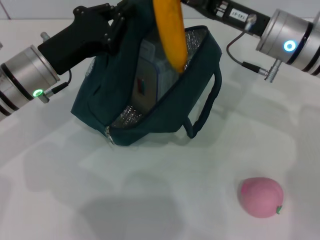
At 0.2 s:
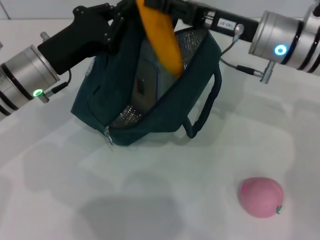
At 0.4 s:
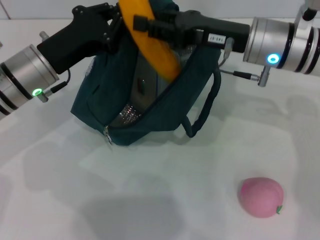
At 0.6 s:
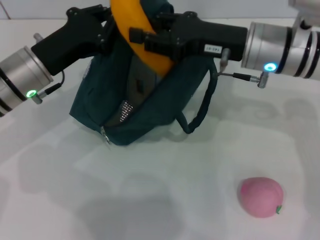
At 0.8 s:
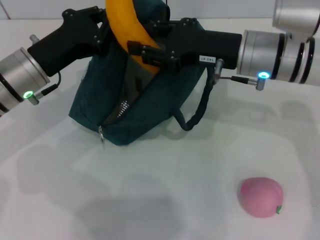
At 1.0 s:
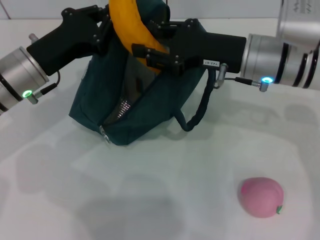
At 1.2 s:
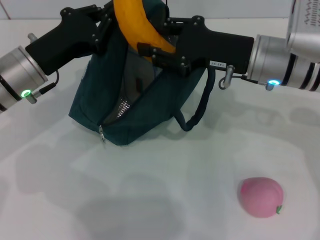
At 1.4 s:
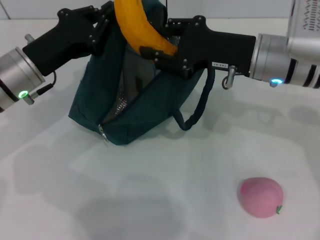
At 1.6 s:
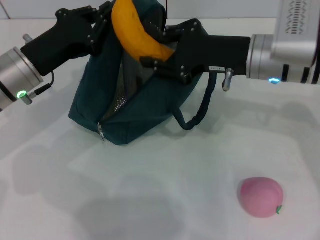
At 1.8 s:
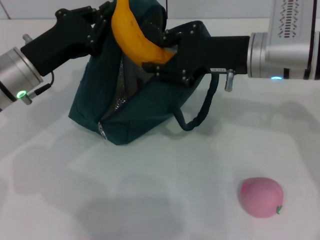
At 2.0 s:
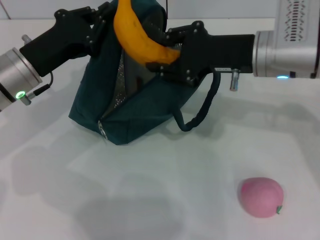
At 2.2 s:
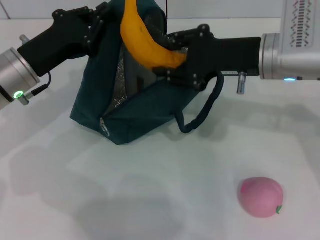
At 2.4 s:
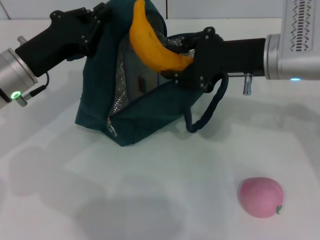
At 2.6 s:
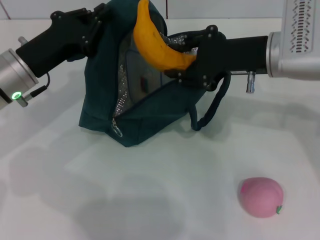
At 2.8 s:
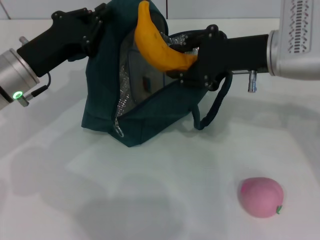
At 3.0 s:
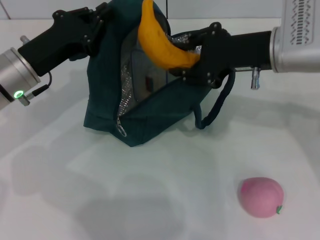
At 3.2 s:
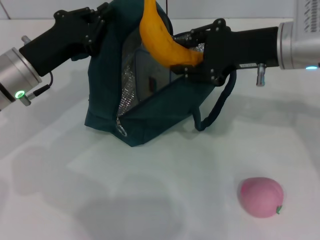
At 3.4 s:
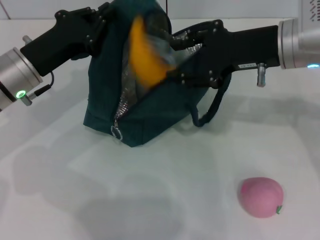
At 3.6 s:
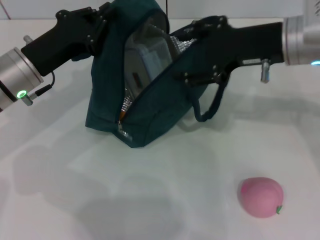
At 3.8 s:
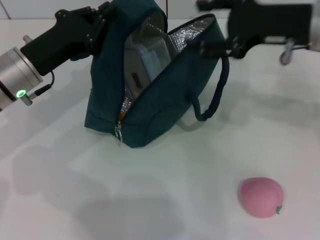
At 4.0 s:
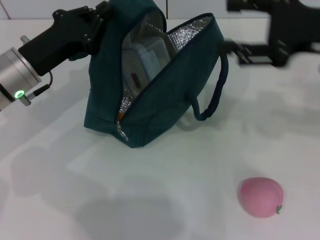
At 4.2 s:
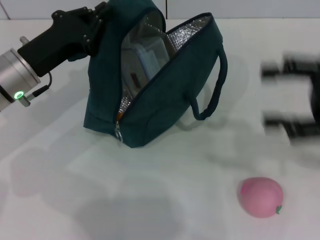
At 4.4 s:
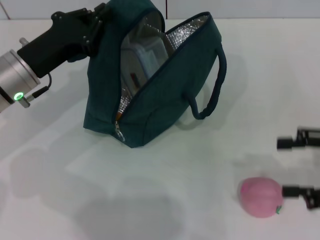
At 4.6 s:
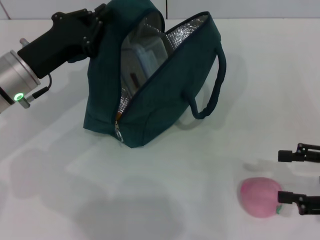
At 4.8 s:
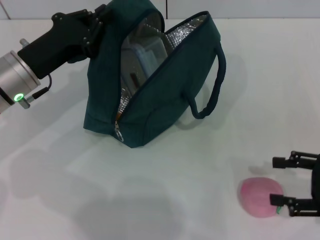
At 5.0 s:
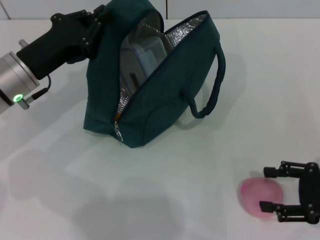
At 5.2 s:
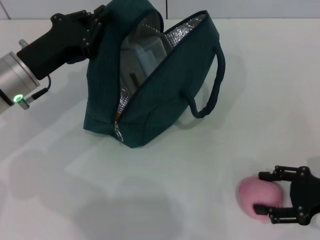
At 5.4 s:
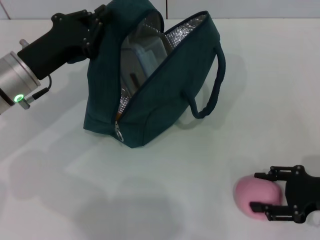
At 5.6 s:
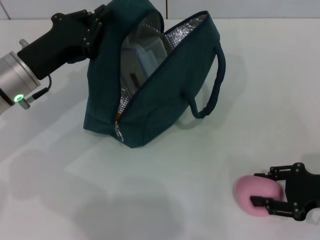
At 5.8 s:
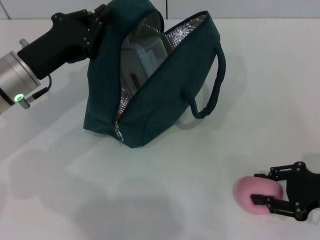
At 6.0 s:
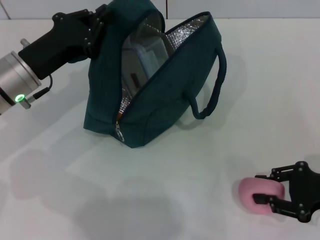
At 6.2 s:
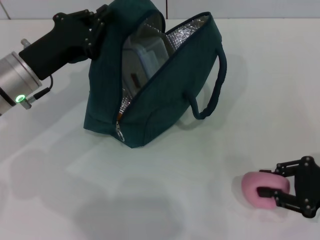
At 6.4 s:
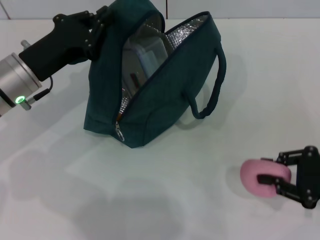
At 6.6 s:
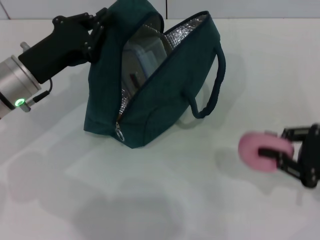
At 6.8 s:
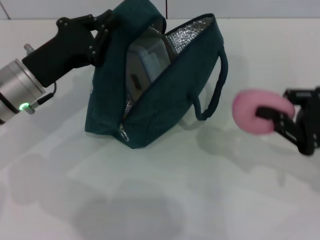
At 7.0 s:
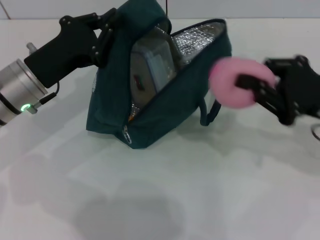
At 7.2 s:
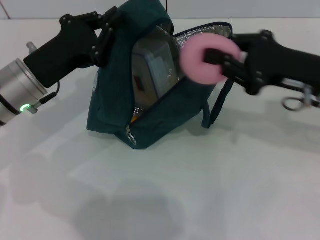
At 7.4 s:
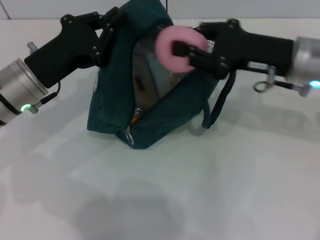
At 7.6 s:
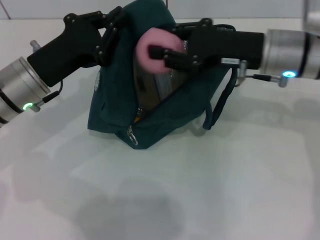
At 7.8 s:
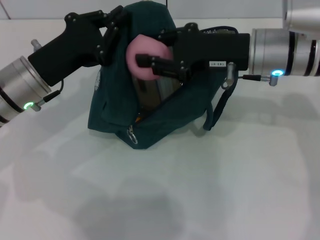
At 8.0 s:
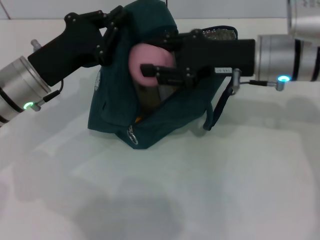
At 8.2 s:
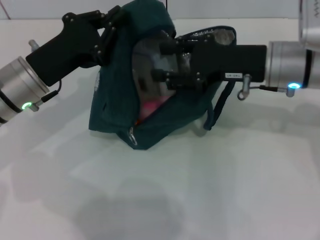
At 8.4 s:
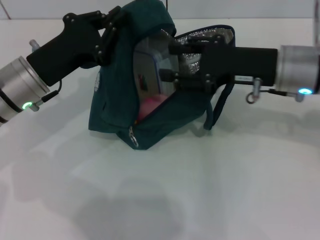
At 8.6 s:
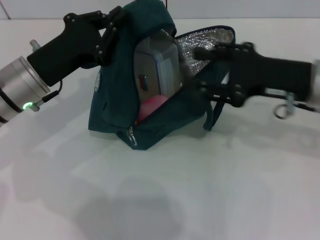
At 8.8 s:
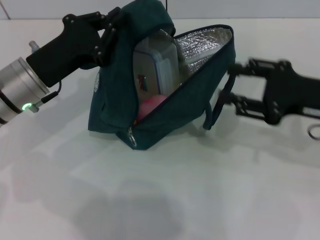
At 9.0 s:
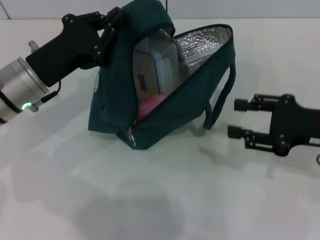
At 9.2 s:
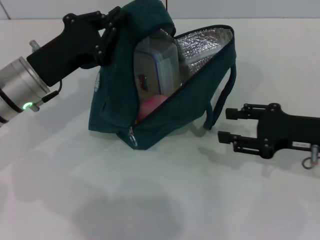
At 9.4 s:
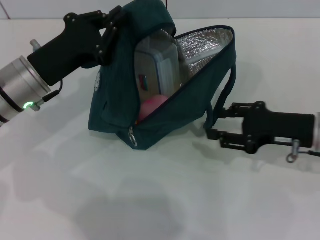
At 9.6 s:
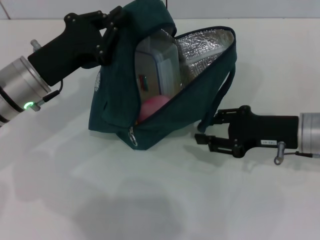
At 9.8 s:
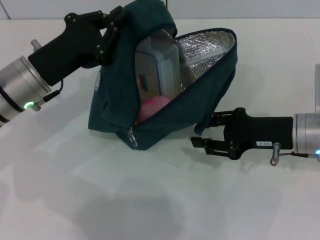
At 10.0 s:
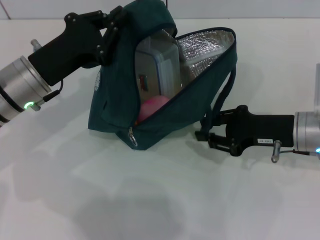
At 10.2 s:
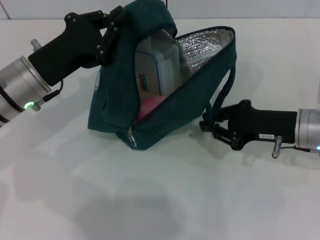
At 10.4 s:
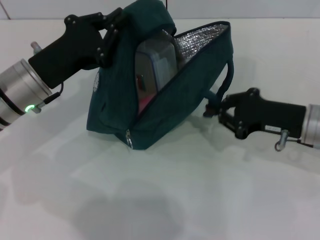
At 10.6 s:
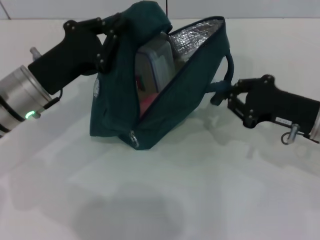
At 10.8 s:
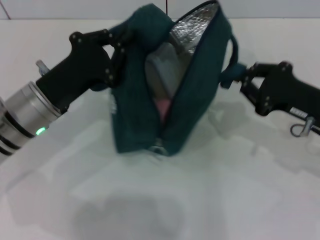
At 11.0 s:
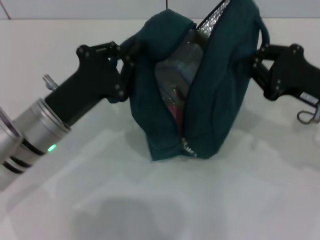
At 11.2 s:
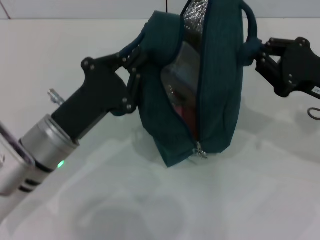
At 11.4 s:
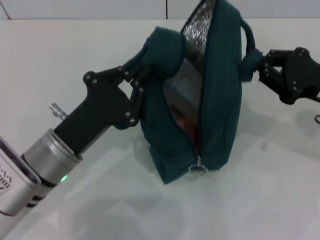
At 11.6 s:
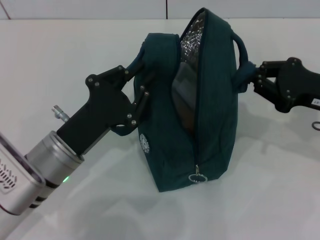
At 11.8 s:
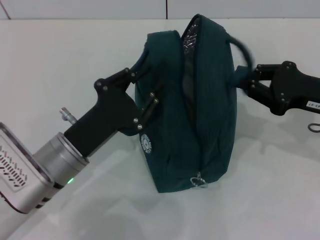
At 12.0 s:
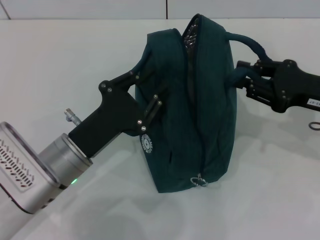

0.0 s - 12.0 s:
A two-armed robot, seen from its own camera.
Step, 0.0 s - 4.2 s: Put the banana into the lunch bag with your right hand.
Step, 4.4 s - 6.0 s: Grab the peach with your right hand.
1.6 s - 3.0 s: The grippers stay close to where they were, moving slightly.
3.0 s - 4.4 s: The right gripper is displaced to the right and backward by roughly 20 cm, and opens.
4.4 s - 6.0 s: The right gripper moves downward, approximately 10 cm, and closes up.
6.0 s - 7.6 s: The right gripper travels to the left, forward and upward by approximately 20 cm.
7.6 s - 9.0 s: The right gripper shifts roughly 15 cm to the right and backward, and opens up.
9.0 s - 10.4 s: The right gripper ends up some 5 cm from where it was, and closes.
10.4 s - 12.0 s: The right gripper moves roughly 5 cm; the left gripper travels backward, downward and to the right by about 10 cm.

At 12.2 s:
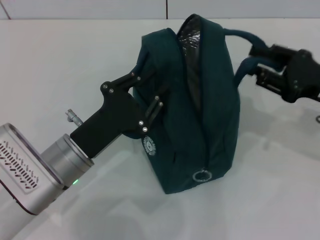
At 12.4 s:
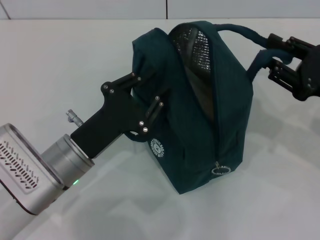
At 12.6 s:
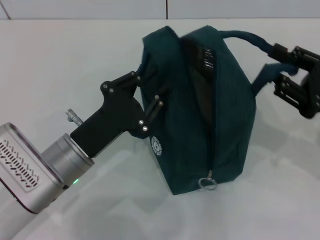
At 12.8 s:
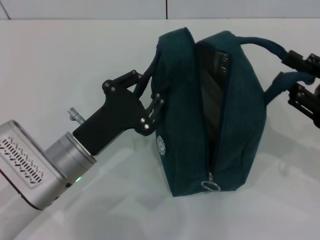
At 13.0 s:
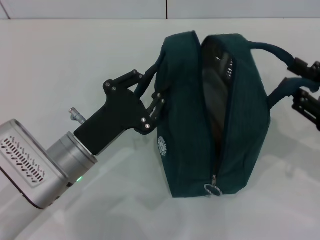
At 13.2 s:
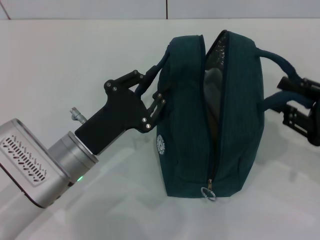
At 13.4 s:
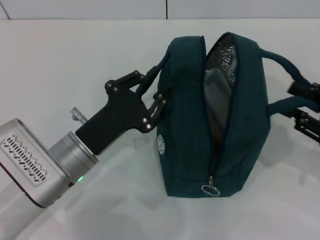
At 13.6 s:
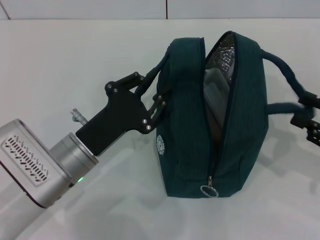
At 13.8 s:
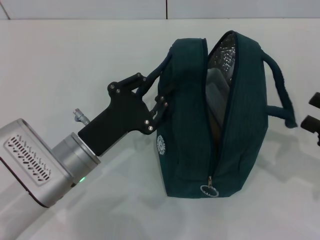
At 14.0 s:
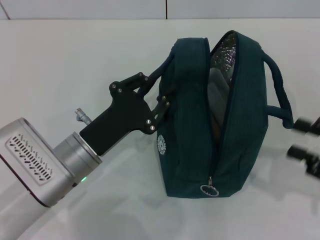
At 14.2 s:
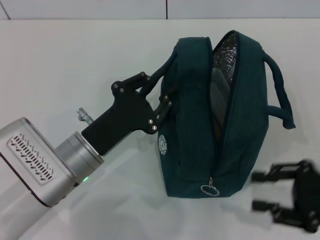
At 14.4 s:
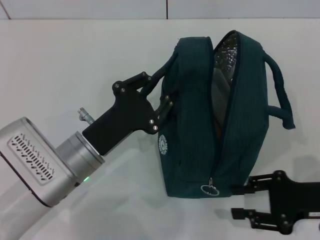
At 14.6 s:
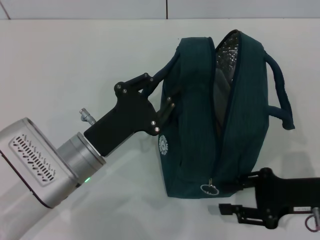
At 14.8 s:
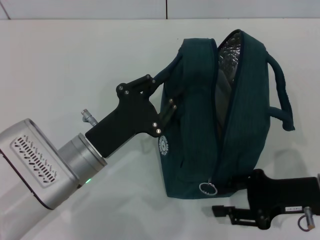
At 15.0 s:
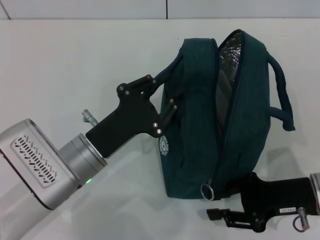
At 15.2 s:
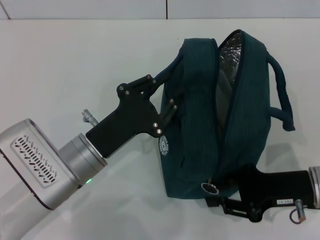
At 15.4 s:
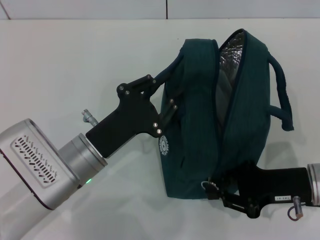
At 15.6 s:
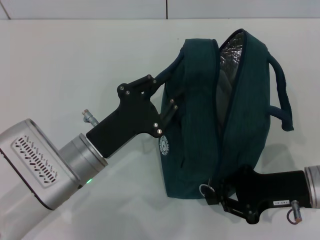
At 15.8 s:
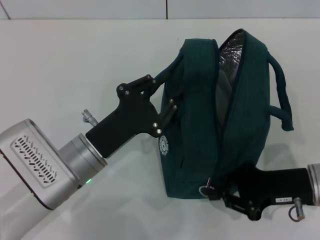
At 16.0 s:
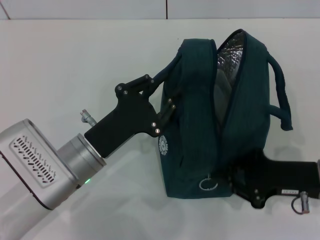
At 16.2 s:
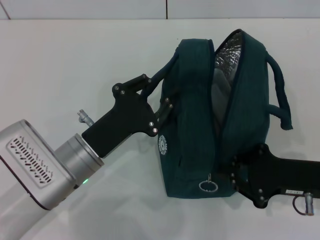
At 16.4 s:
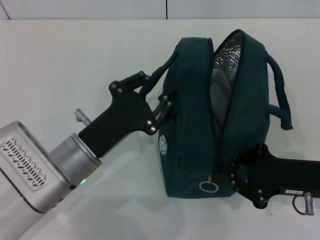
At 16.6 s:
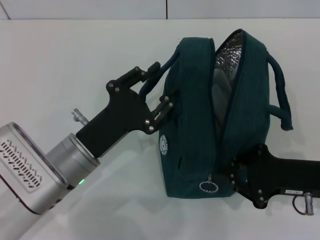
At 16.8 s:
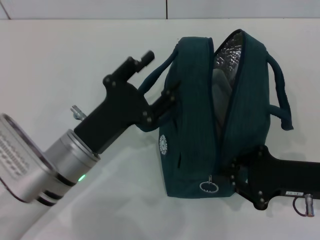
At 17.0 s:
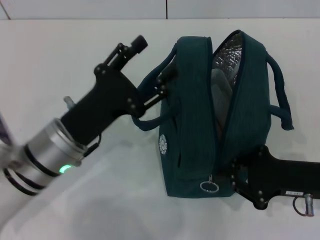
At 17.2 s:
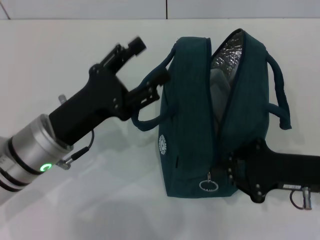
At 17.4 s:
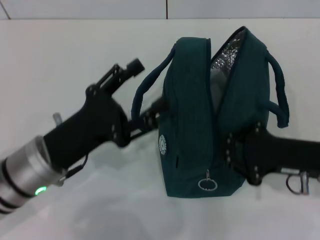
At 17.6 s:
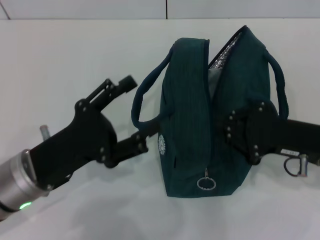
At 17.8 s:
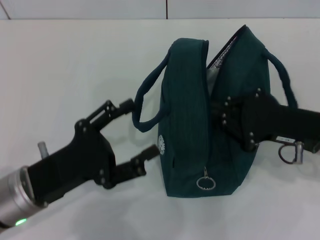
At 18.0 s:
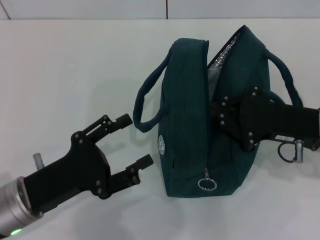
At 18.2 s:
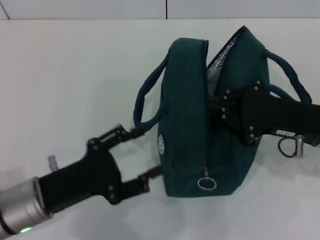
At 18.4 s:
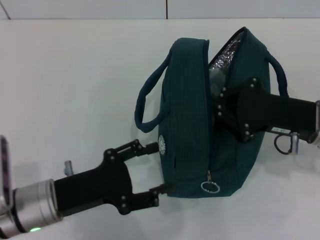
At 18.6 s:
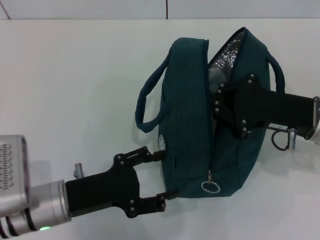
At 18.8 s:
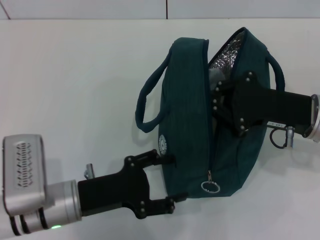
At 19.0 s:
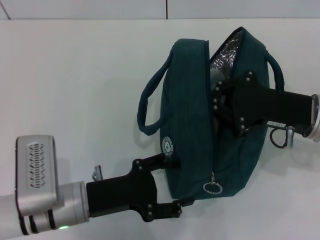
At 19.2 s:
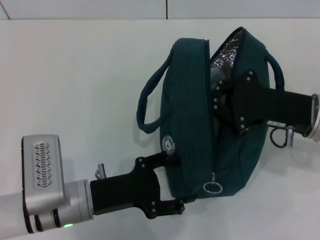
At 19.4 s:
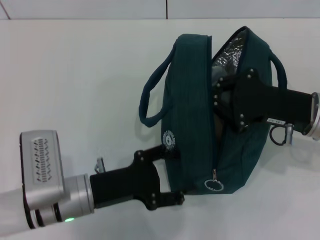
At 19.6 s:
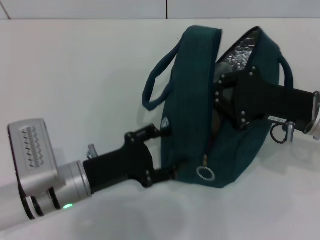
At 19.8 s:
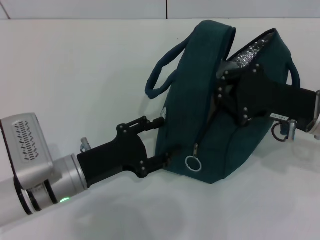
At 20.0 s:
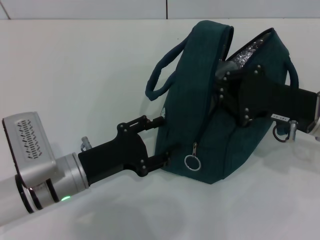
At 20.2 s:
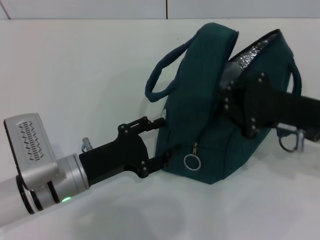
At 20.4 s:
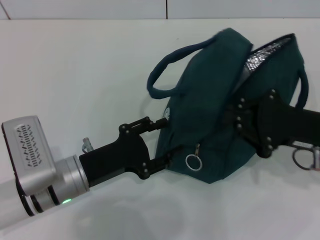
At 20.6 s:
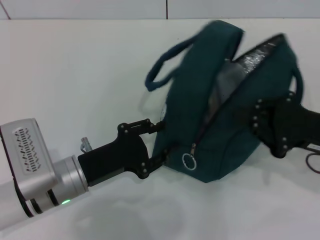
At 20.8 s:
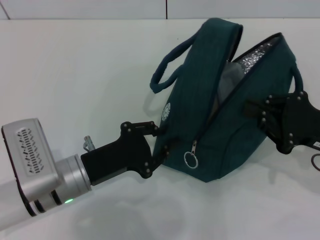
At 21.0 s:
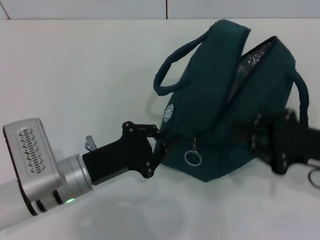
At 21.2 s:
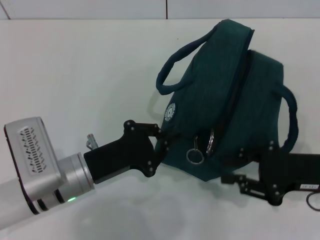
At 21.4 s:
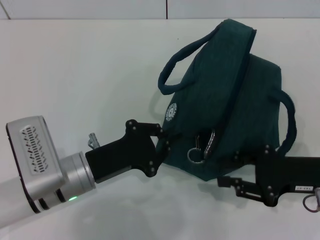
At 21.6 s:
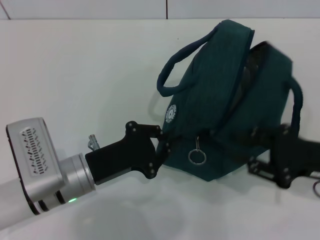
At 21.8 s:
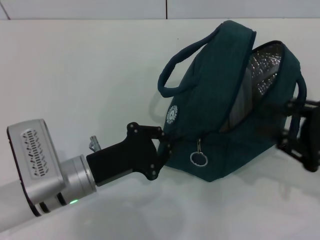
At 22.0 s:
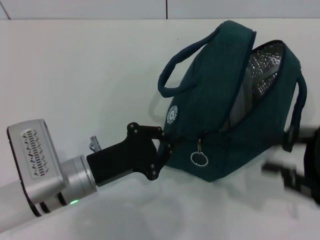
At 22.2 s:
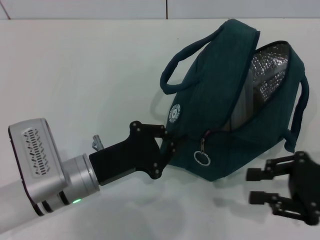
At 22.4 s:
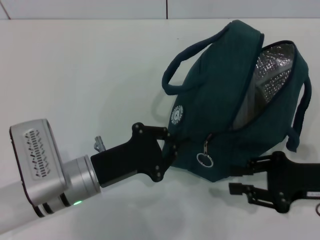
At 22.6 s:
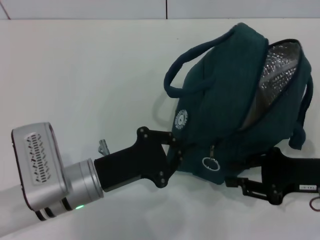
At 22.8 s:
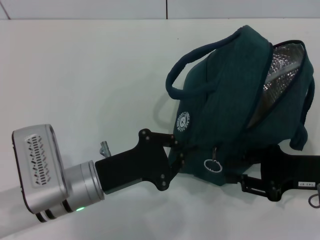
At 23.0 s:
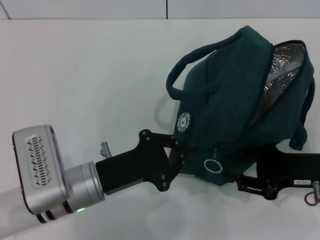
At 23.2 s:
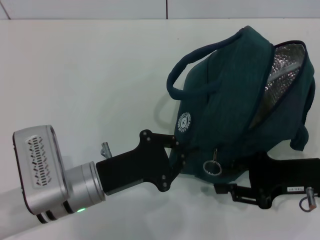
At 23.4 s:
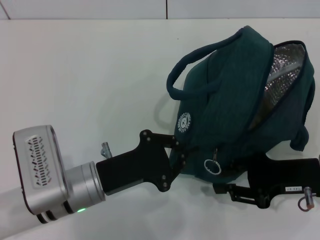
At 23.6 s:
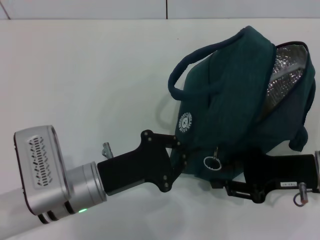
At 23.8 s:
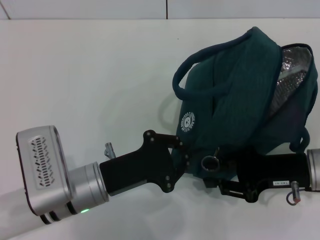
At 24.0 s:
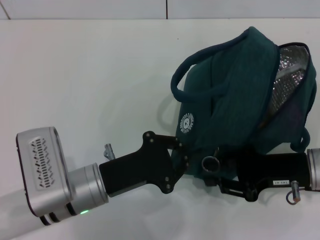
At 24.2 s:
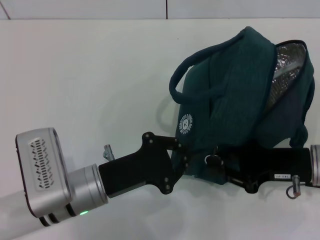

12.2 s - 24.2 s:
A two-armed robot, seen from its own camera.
Step, 12.8 s - 17.8 s: Hold the lunch bag with your left hand.
12.2 s - 13.8 s: The right gripper moves backward and to the right, roughly 10 cm.
13.8 s - 15.2 s: The right gripper is displaced to the left and downward by about 10 cm.
15.2 s - 16.6 s: The right gripper closes its fingers.
16.6 s - 18.2 s: The right gripper ends up roughly 5 cm from where it was. Meanwhile the left gripper goes about 5 cm to the left, and opens its fingers.
18.2 s - 19.8 s: The left gripper moves approximately 5 cm.
19.8 s - 21.2 s: The right gripper moves about 5 cm. The left gripper closes up.
22.6 s - 24.2 s: There are only small adjustments of the grippers.
